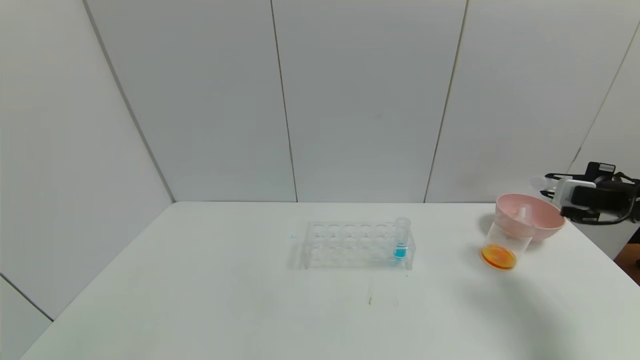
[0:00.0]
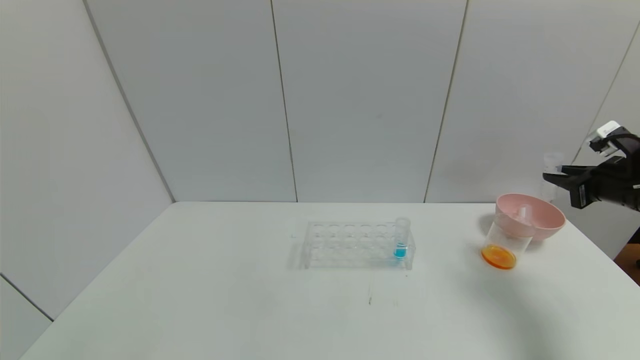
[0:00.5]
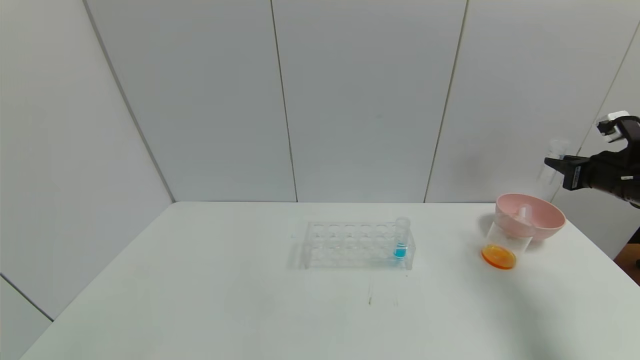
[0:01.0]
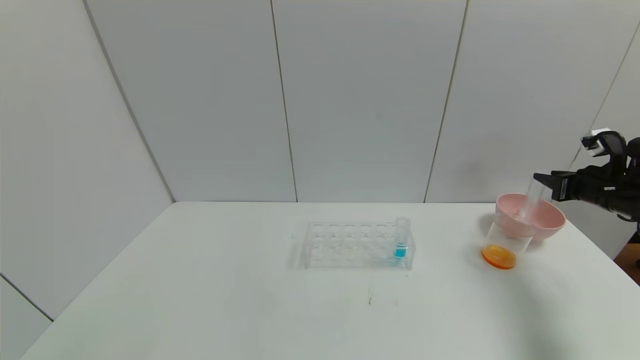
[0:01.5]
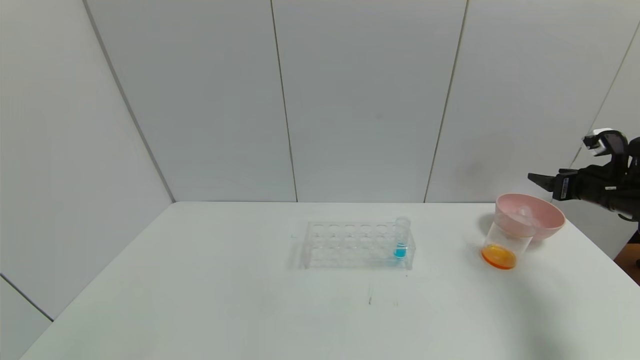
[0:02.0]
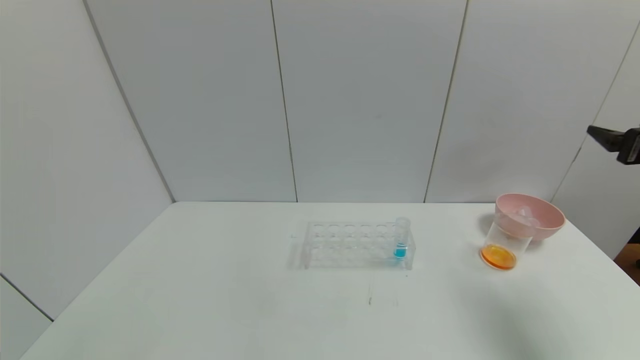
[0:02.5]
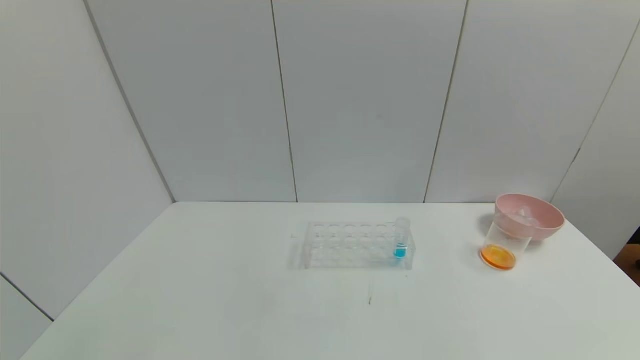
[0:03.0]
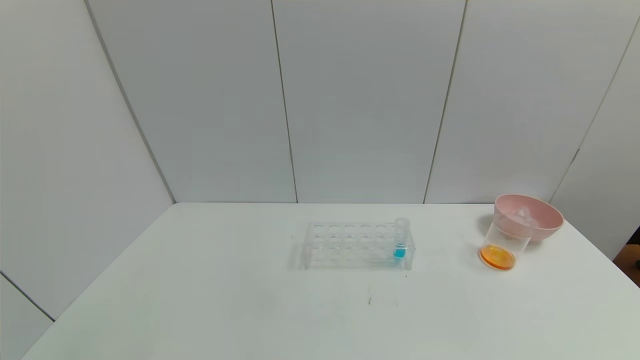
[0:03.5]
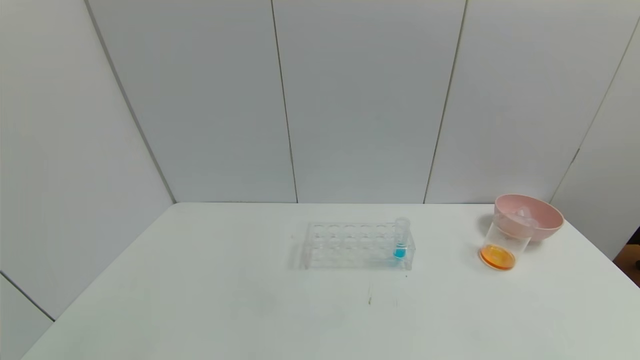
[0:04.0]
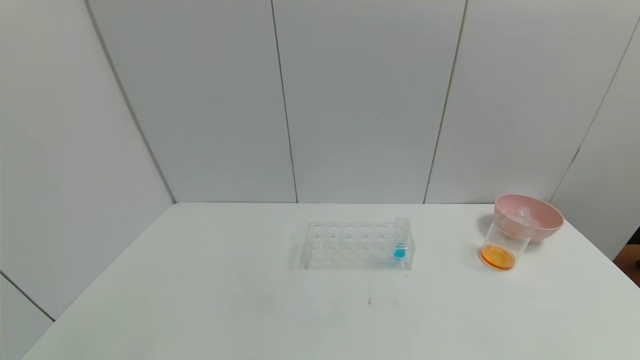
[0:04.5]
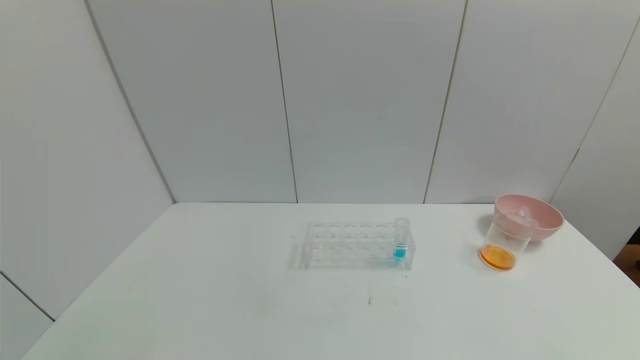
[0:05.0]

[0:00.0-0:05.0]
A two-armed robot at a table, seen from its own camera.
Task of the whole recording: pick up the test tube with yellow pigment and the test tube with red pigment by grippers and pour them into the beaker.
Step, 0:01.0 to 0:02.5: Place the test tube into the bowl with right gripper.
0:00.0 to 0:02.5: The right gripper heads upward and backward, covering roughly 10 cm, and opens up.
0:02.5 to 0:05.0: The right gripper travels backward and downward by some 35 cm.
